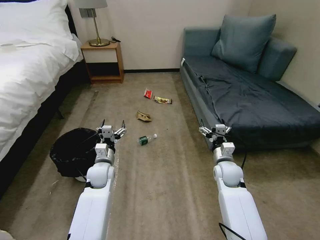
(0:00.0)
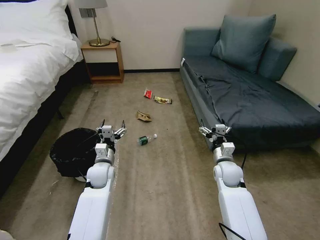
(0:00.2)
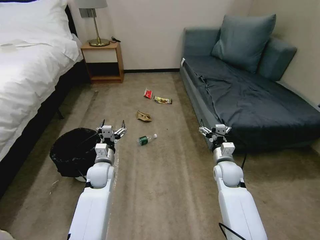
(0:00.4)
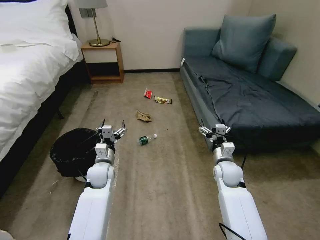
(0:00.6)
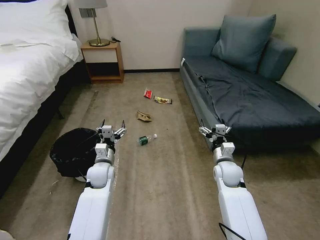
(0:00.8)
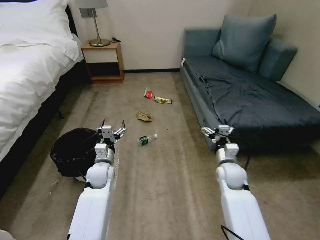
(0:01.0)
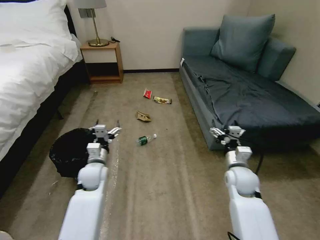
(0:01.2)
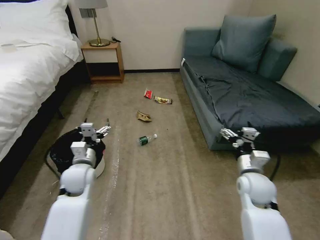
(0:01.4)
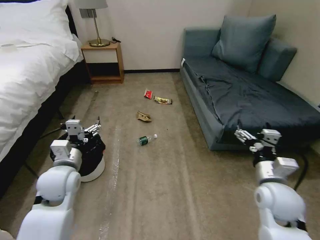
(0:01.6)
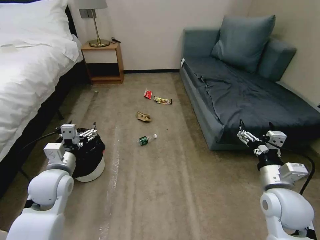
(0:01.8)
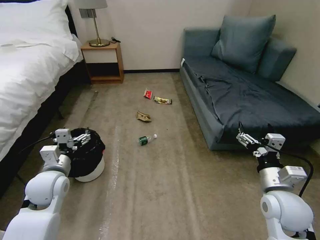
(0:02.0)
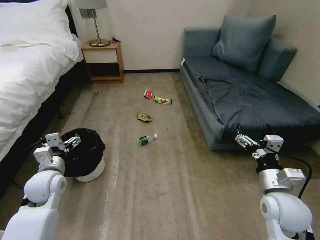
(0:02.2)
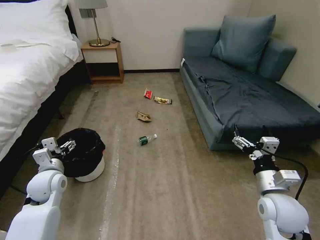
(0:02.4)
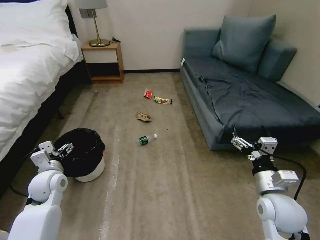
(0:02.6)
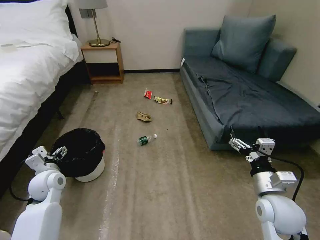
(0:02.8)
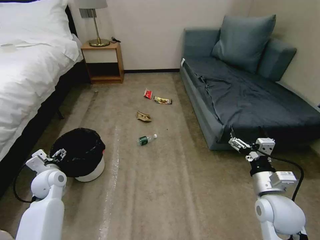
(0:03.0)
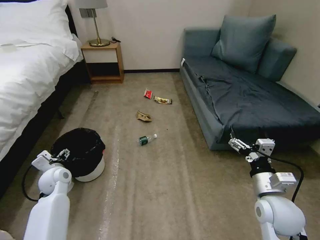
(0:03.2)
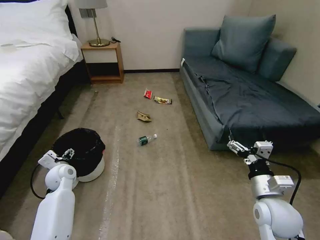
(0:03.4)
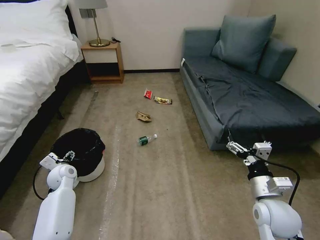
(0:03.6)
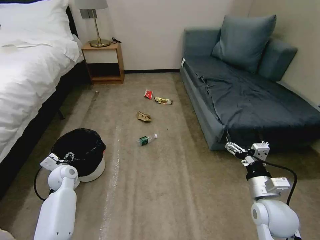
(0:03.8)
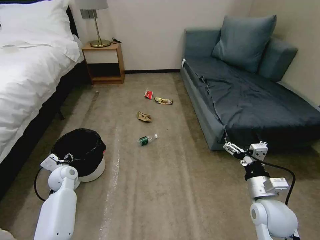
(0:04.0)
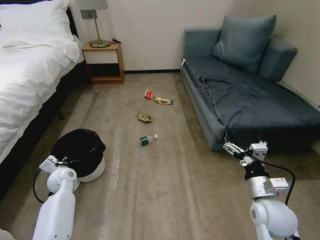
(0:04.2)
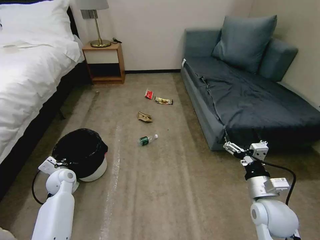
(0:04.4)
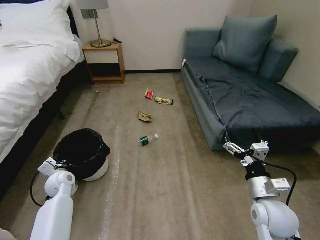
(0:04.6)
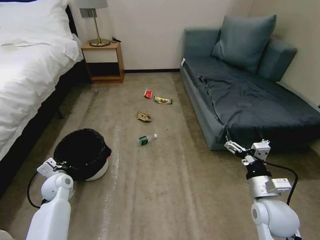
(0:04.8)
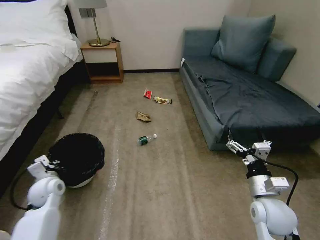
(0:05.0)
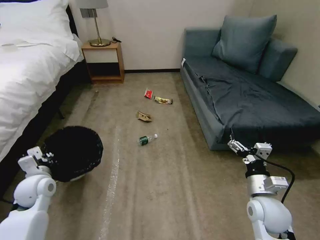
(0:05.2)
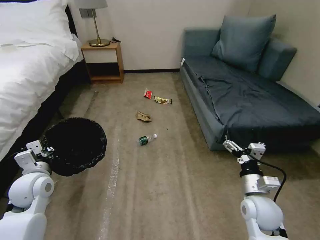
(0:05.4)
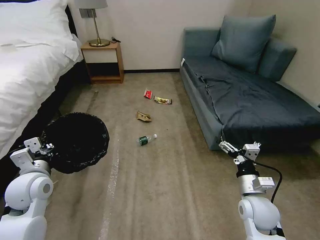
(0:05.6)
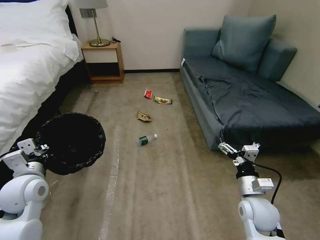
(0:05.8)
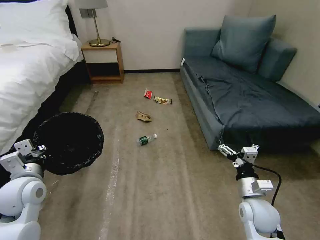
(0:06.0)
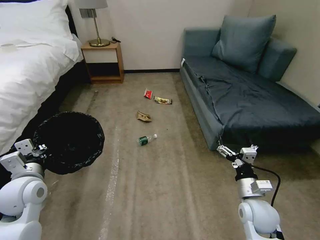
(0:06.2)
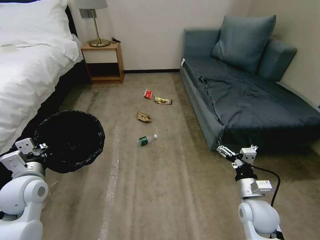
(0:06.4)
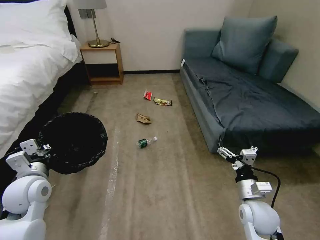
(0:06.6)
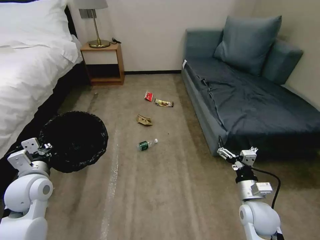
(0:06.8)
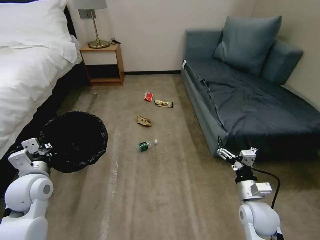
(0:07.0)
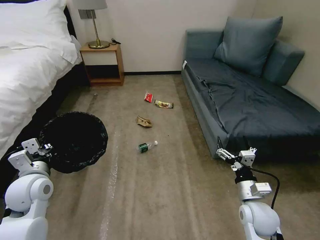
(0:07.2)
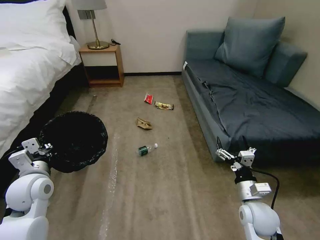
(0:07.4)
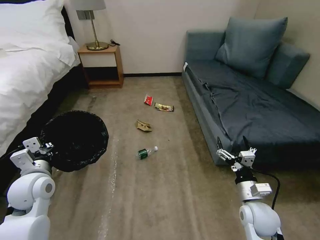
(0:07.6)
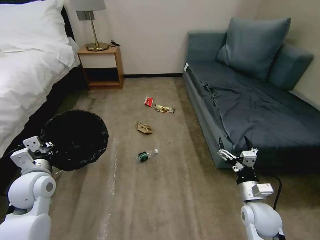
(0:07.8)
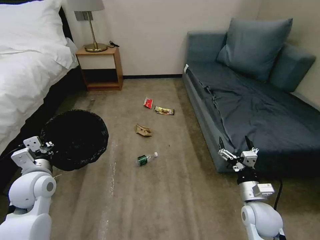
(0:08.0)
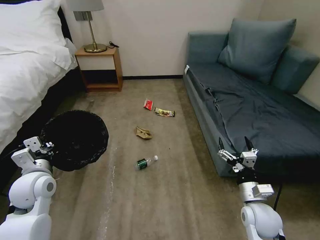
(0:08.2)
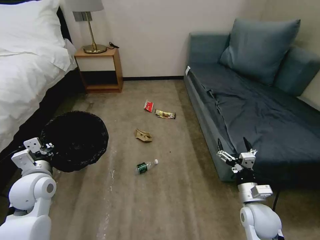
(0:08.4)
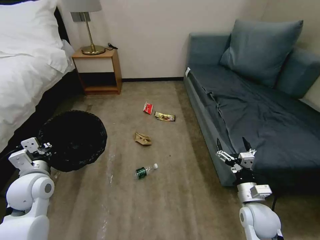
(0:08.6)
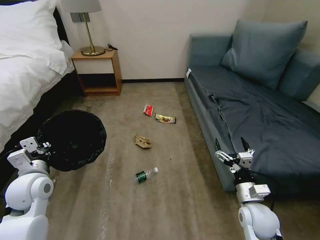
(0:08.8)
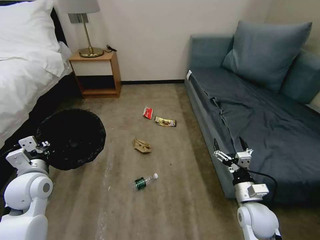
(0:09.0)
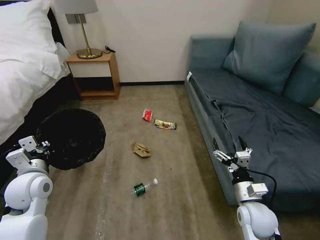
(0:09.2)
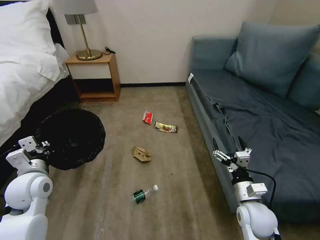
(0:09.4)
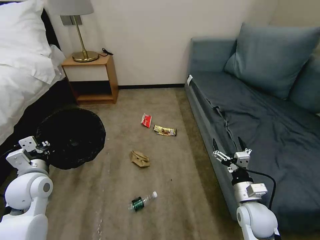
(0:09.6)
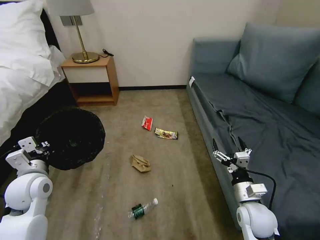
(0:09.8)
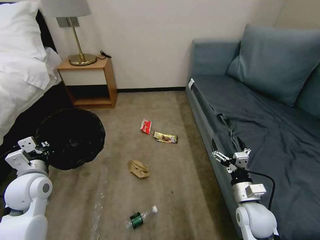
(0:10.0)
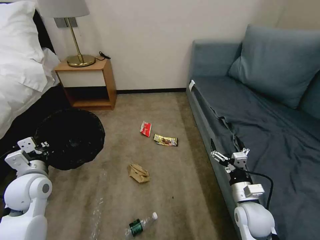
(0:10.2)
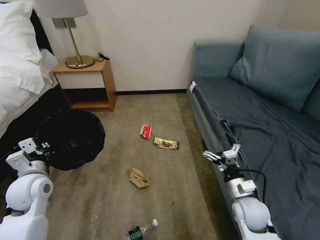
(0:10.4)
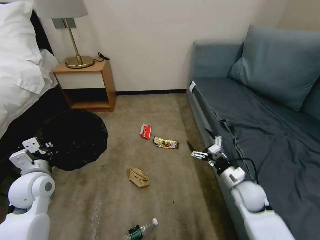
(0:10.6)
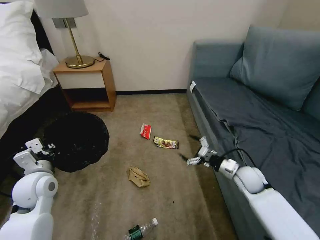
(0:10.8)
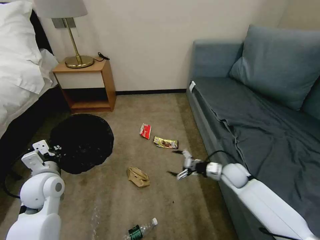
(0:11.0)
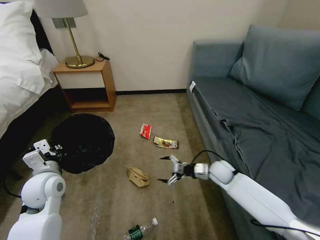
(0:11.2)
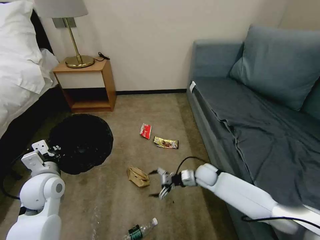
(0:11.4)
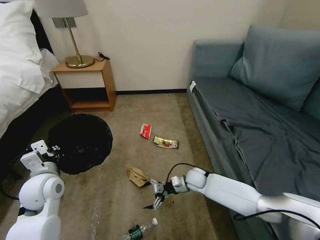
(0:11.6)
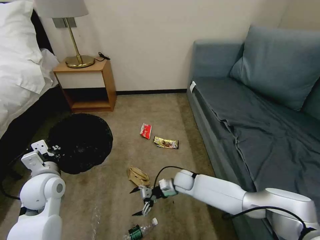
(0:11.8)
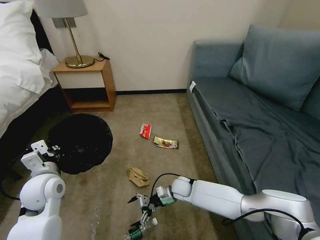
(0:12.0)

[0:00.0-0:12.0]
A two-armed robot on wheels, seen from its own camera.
Task of the whole recording: Pick up the trash bin, then pick up the garbage on the floor and place it into the trash bin.
0:01.6 to 0:03.0: The left gripper moves to the left and downward, about 15 cm.
0:03.0 to 0:04.4: The left gripper travels downward by approximately 5 cm, and closes its fingers.
0:04.4 to 0:06.0: The left gripper travels upward and backward by some 20 cm.
0:10.4 to 0:12.0: The right gripper goes roughly 25 cm to the left, forward and downward.

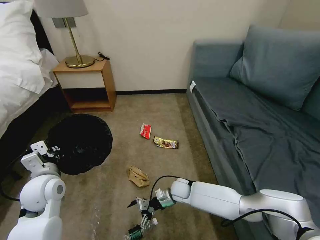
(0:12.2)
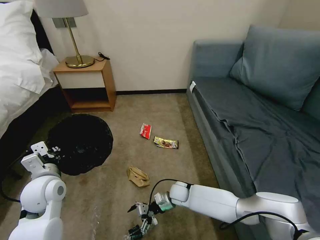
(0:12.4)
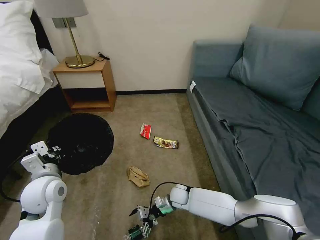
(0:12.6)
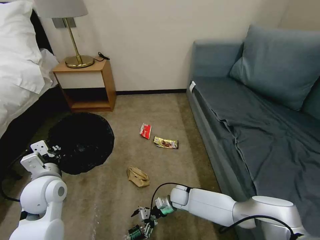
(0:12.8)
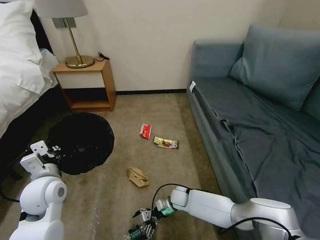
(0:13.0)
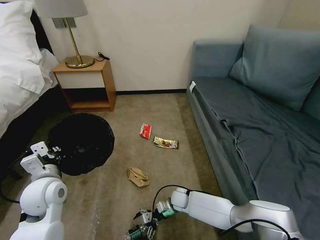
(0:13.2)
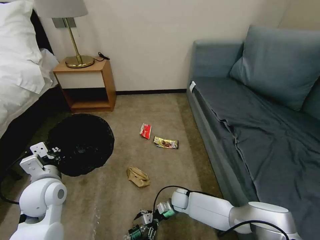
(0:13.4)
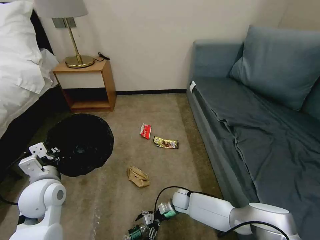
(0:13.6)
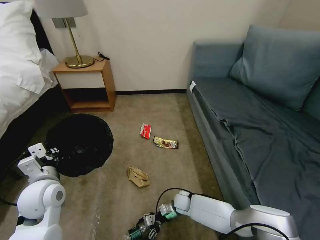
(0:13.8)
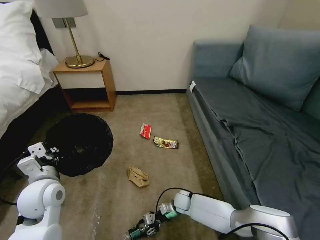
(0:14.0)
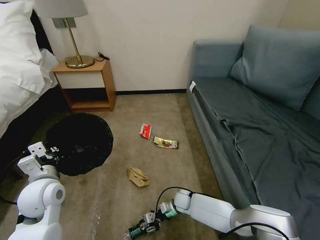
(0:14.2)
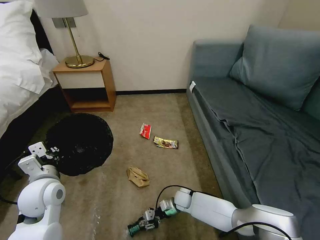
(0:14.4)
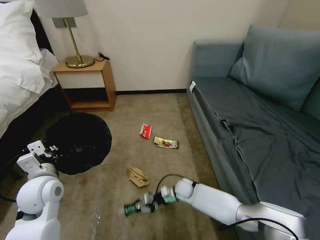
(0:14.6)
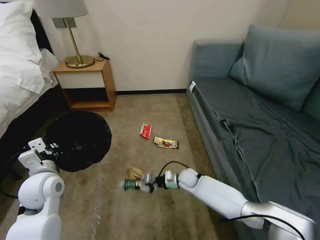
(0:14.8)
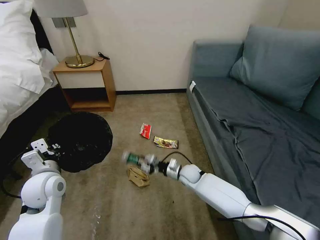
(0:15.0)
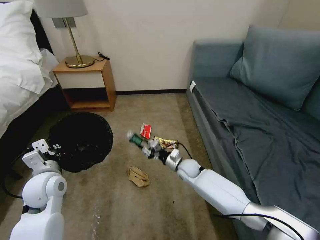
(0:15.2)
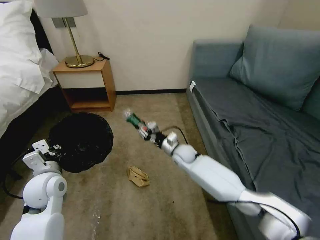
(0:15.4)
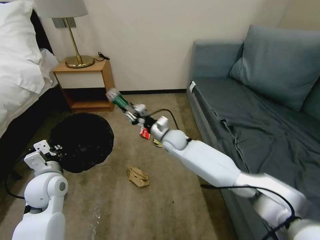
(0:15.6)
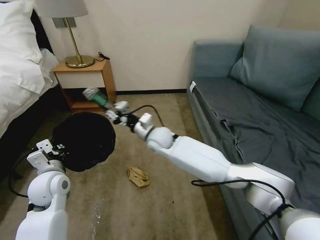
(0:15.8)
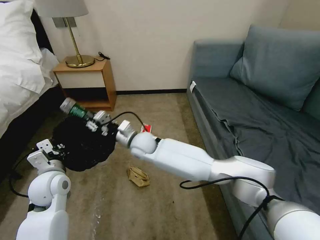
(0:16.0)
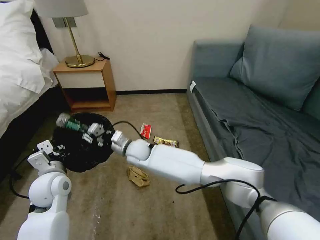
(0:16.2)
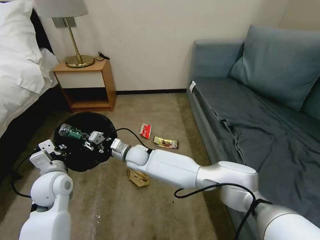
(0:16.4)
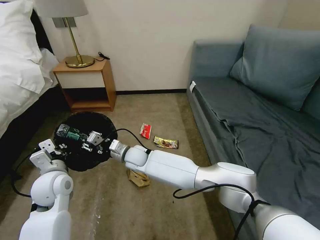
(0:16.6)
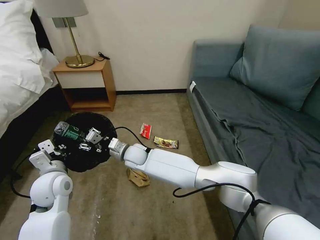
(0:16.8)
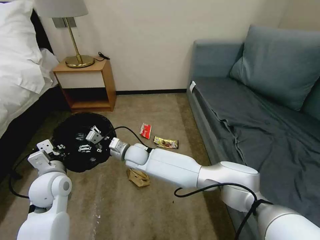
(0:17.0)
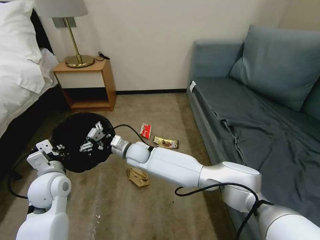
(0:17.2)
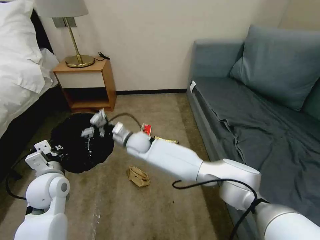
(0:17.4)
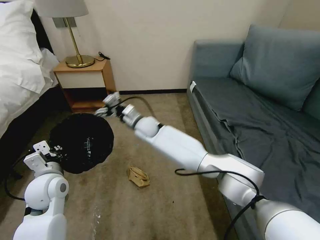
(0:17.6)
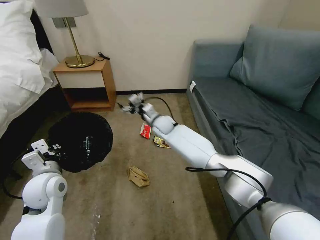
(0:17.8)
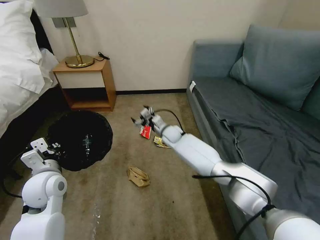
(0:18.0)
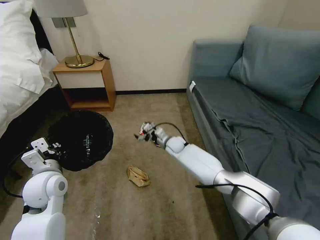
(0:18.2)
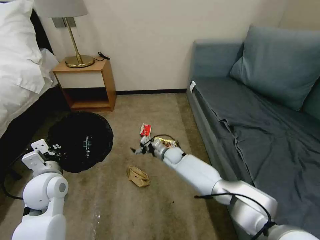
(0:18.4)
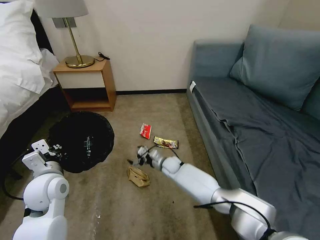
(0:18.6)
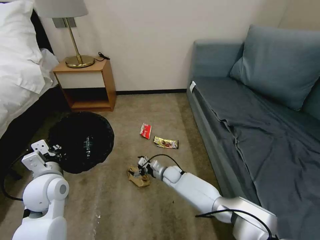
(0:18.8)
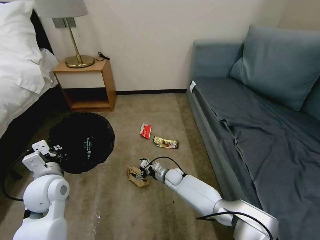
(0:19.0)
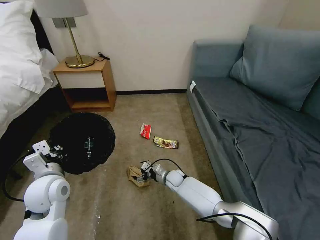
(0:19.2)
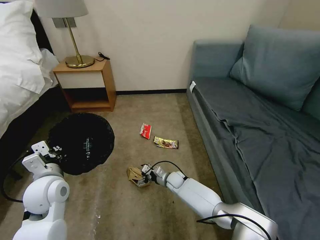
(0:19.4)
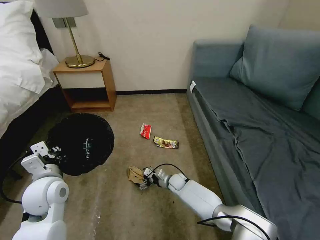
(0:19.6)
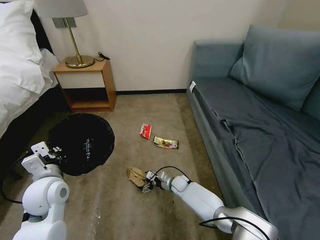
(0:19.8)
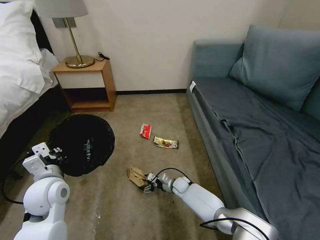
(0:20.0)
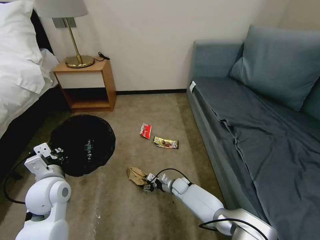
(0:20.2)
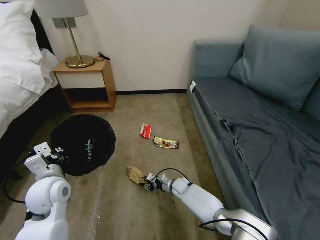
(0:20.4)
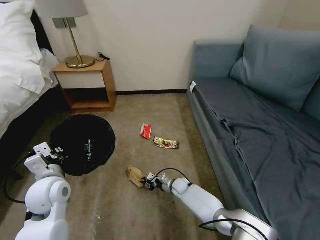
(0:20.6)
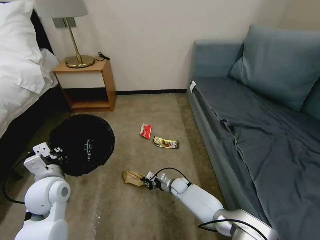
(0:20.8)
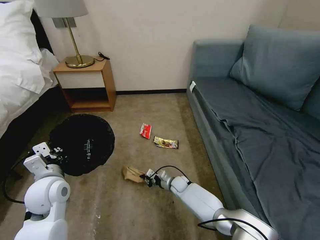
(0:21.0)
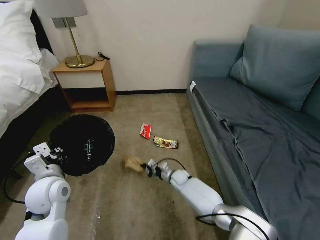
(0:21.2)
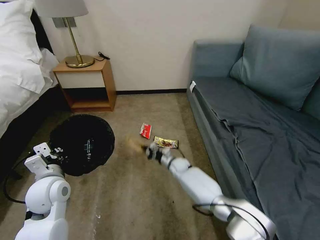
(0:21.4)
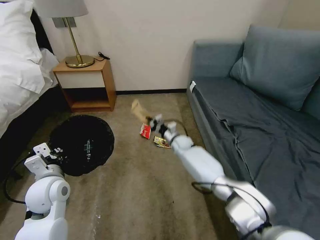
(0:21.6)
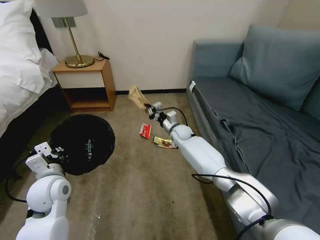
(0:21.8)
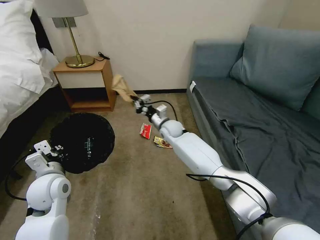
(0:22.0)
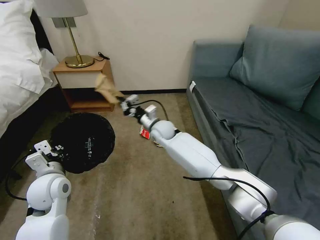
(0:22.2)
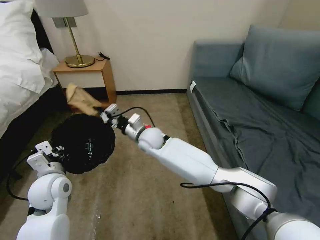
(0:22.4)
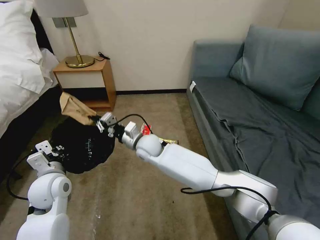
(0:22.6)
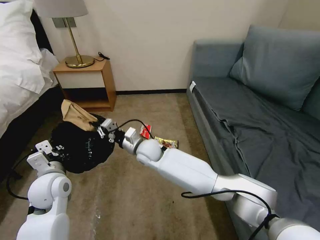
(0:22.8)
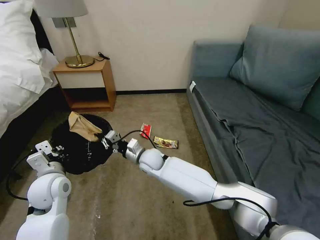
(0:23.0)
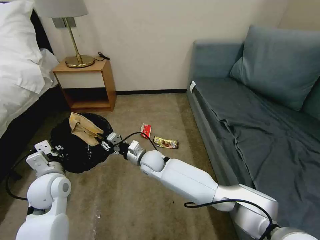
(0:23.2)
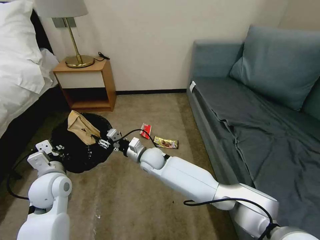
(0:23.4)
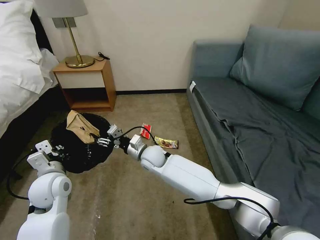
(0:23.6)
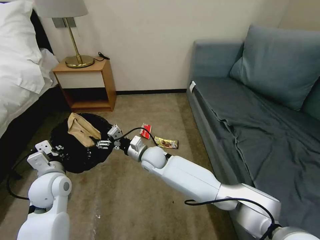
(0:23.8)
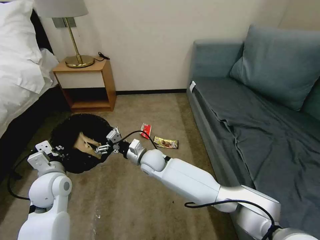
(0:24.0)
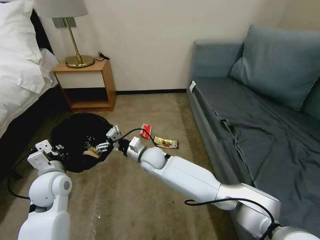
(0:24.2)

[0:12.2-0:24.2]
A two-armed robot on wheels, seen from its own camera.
Task of the whole recording: Pick up the trash bin, then pick up the garbage on the floor and place it into the trash bin.
0:12.2 to 0:13.8: The right gripper travels downward by approximately 10 cm.
0:13.8 to 0:15.2: The right gripper is displaced upward and forward by roughly 15 cm, and closes its fingers.
0:15.2 to 0:16.6: The right gripper moves to the left and upward, roughly 25 cm.
0:16.6 to 0:18.2: The right gripper shifts some 20 cm to the right and forward, and opens up.
0:18.2 to 0:19.8: The right gripper is displaced downward and backward by some 20 cm.
0:19.8 to 0:21.2: The right gripper closes up.
0:21.2 to 0:22.6: The right gripper travels upward and to the left by roughly 30 cm.
0:22.6 to 0:24.2: The right gripper travels downward by roughly 5 cm, and opens up.
